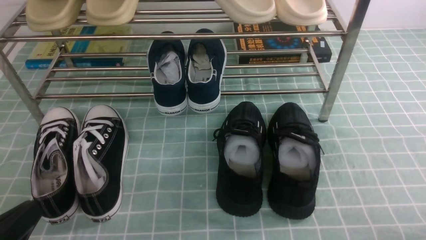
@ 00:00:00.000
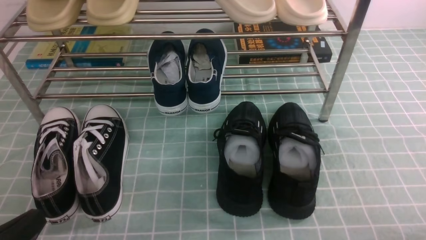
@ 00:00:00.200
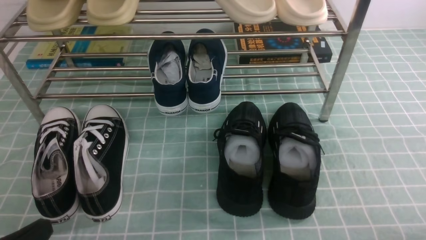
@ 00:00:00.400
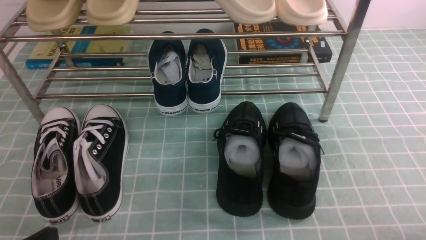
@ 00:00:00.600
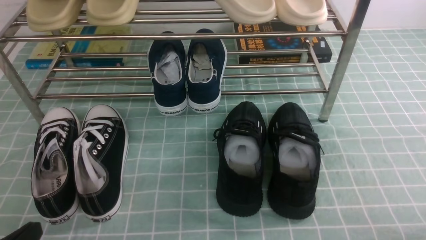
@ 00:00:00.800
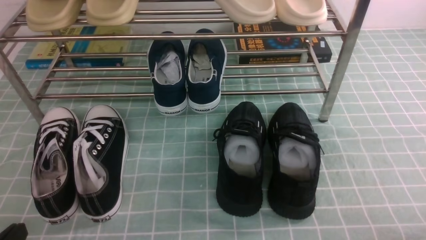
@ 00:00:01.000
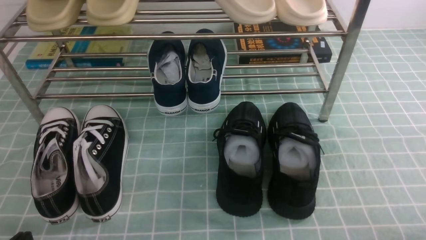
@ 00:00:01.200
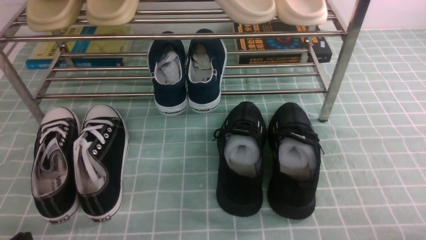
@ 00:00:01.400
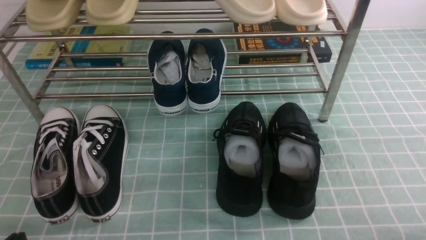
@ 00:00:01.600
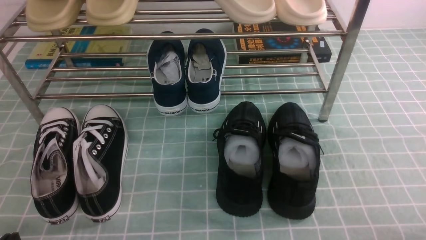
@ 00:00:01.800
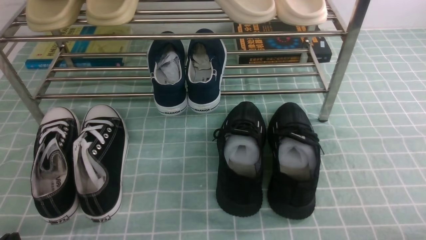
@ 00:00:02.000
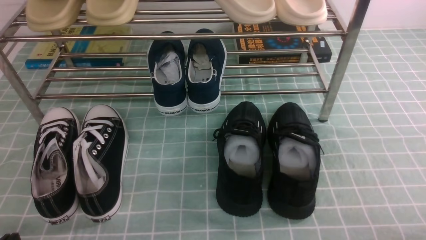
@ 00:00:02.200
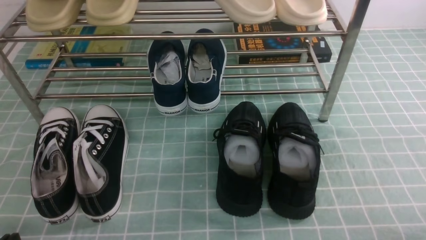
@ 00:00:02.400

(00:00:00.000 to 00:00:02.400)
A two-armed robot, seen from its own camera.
00:00:00.000 - 00:00:01.200: The left gripper shifts roughly 5 cm downward.

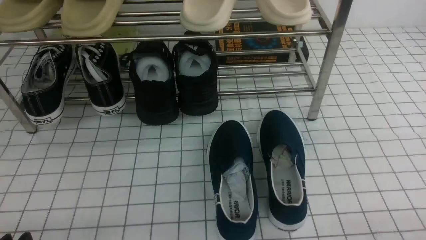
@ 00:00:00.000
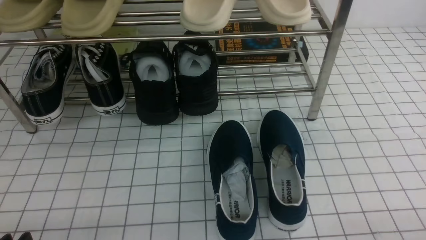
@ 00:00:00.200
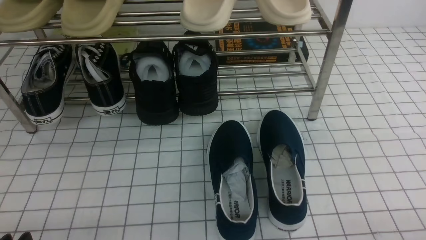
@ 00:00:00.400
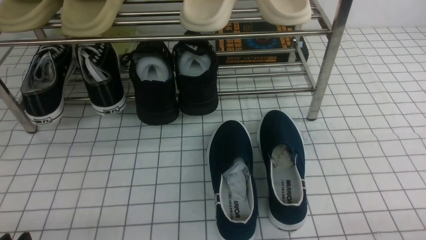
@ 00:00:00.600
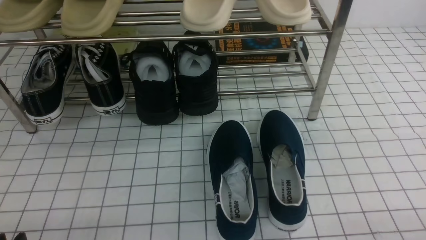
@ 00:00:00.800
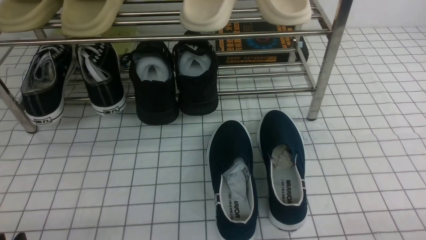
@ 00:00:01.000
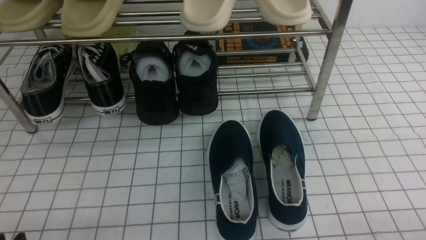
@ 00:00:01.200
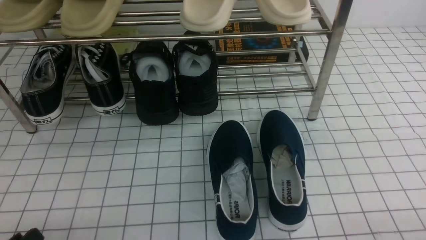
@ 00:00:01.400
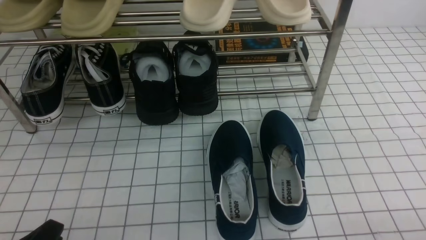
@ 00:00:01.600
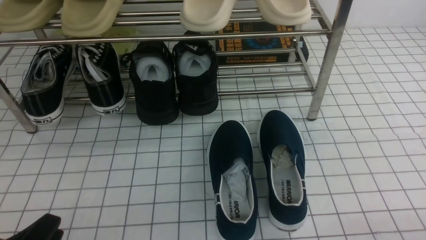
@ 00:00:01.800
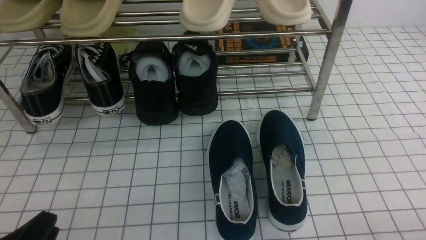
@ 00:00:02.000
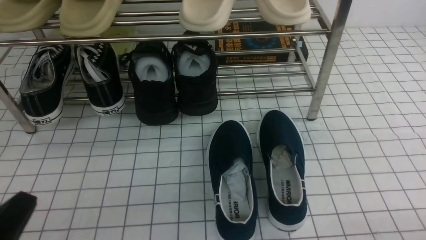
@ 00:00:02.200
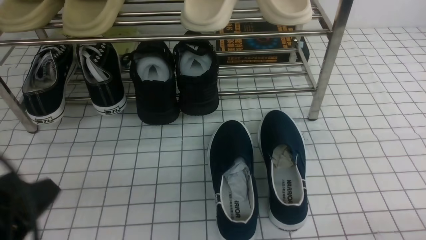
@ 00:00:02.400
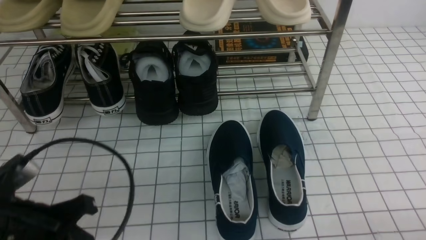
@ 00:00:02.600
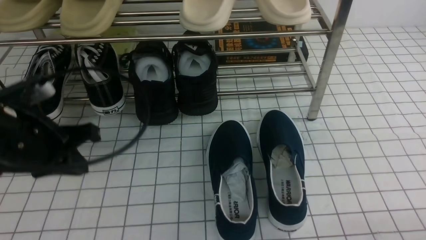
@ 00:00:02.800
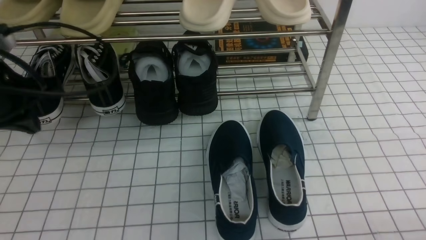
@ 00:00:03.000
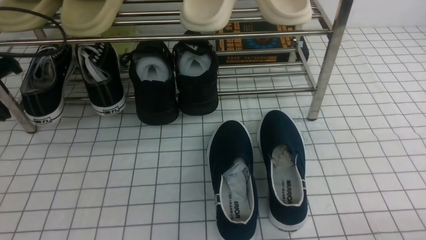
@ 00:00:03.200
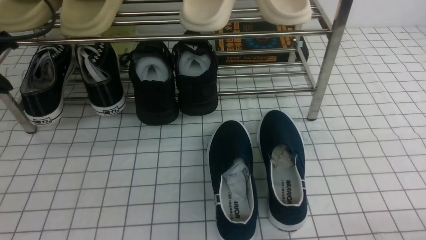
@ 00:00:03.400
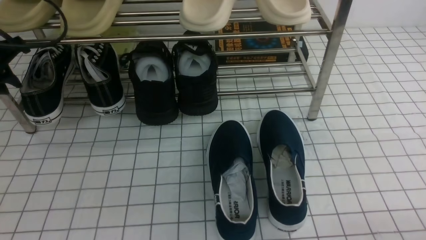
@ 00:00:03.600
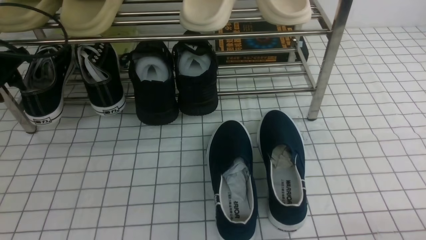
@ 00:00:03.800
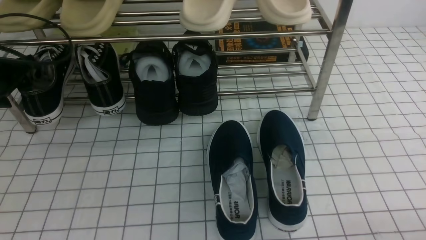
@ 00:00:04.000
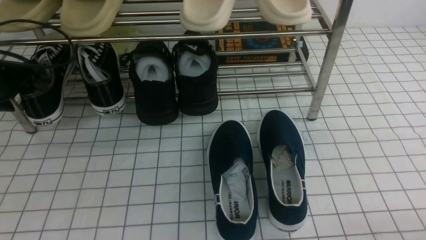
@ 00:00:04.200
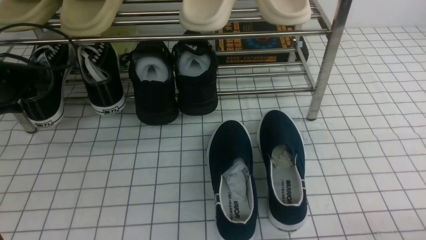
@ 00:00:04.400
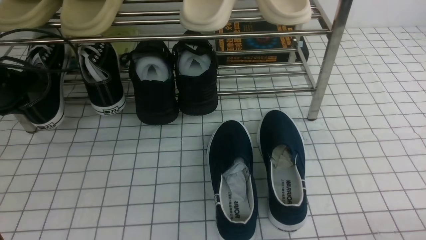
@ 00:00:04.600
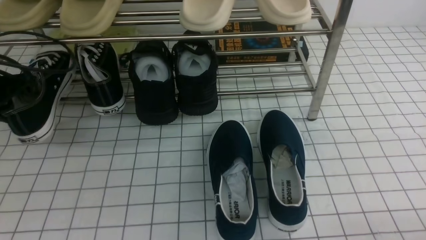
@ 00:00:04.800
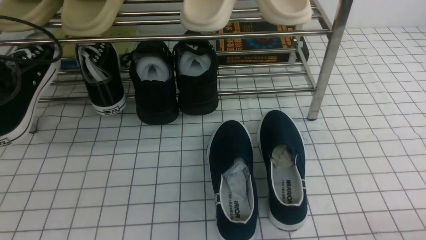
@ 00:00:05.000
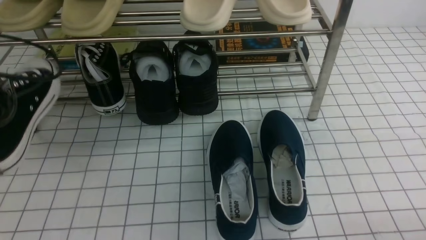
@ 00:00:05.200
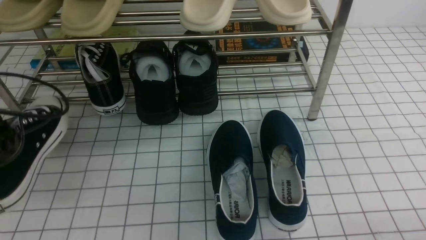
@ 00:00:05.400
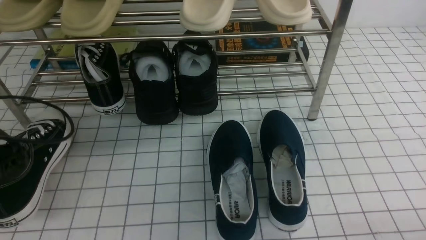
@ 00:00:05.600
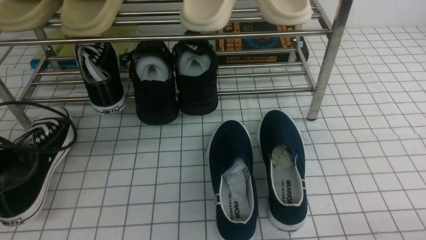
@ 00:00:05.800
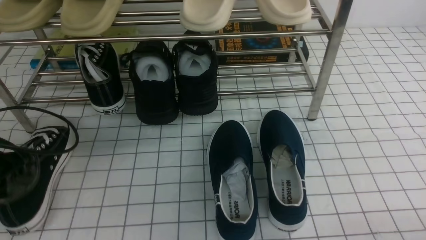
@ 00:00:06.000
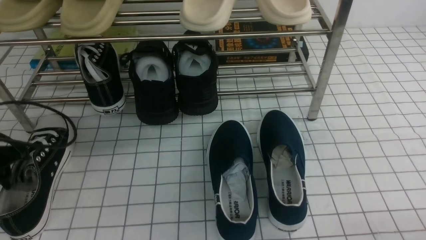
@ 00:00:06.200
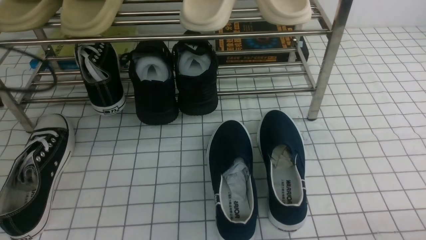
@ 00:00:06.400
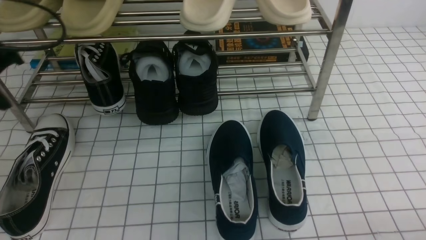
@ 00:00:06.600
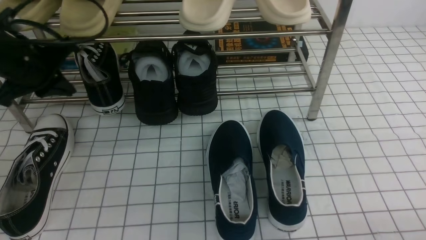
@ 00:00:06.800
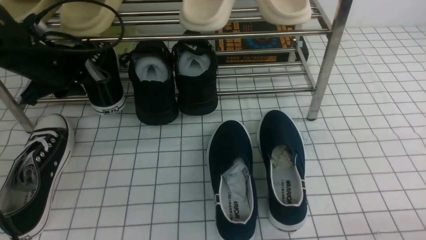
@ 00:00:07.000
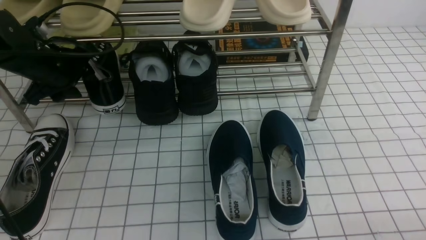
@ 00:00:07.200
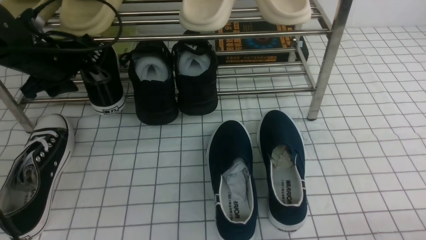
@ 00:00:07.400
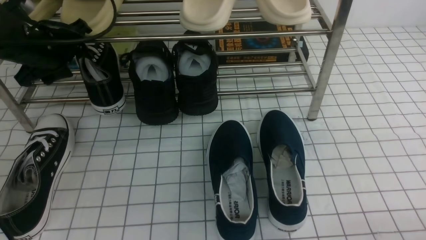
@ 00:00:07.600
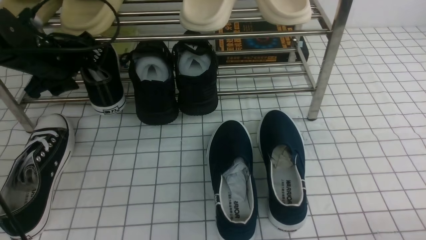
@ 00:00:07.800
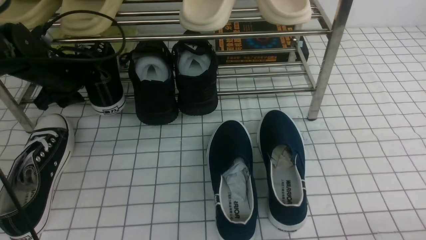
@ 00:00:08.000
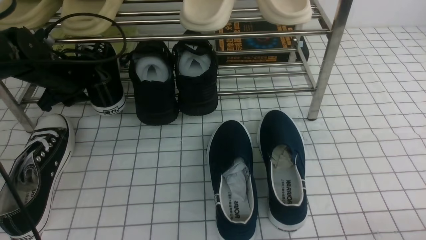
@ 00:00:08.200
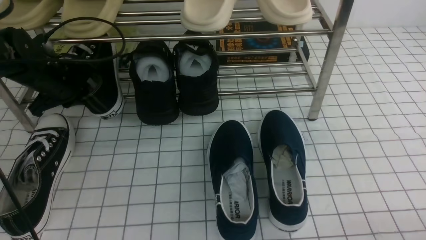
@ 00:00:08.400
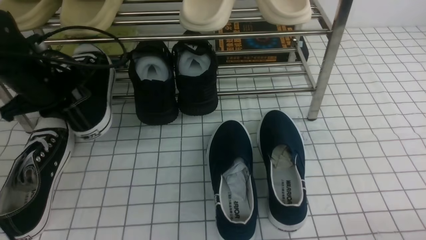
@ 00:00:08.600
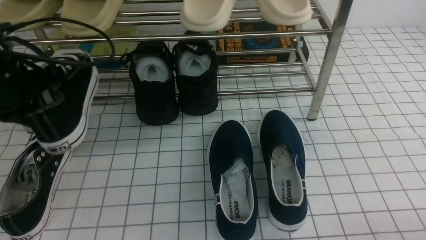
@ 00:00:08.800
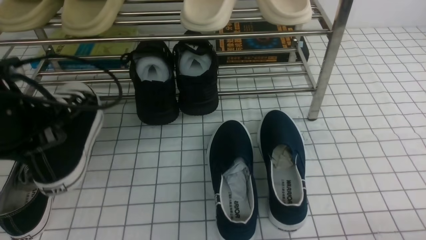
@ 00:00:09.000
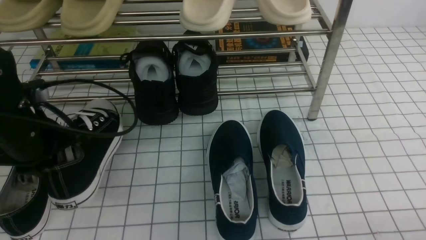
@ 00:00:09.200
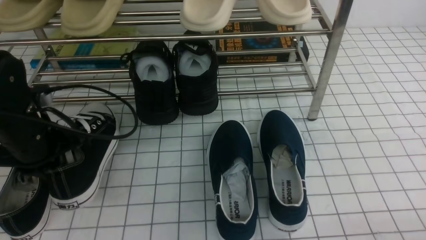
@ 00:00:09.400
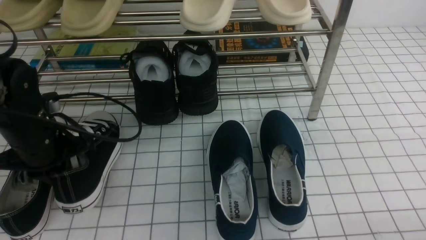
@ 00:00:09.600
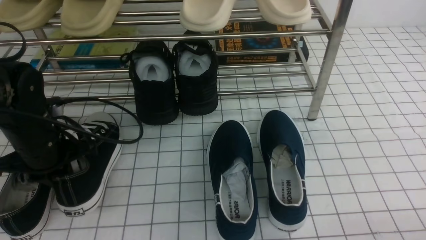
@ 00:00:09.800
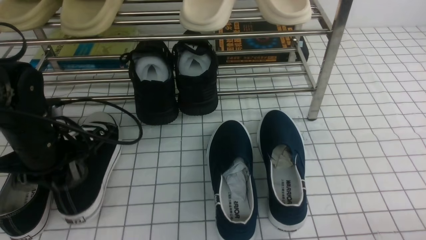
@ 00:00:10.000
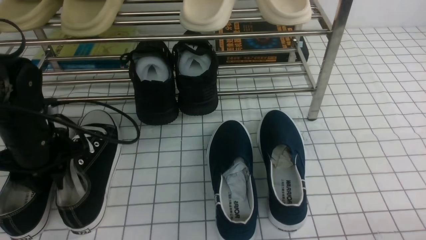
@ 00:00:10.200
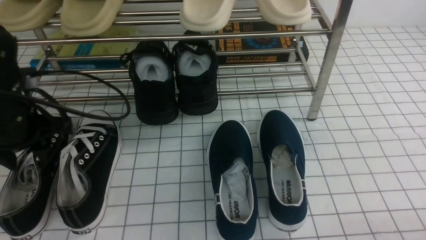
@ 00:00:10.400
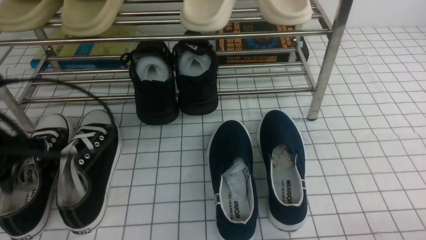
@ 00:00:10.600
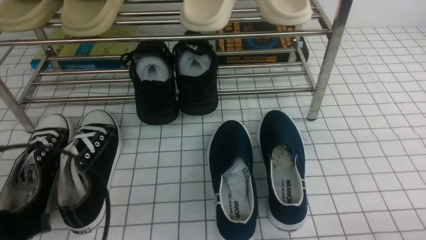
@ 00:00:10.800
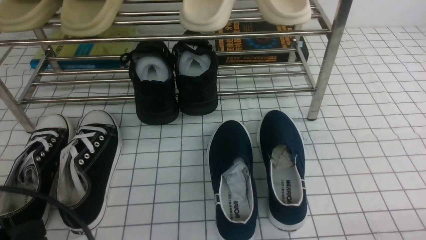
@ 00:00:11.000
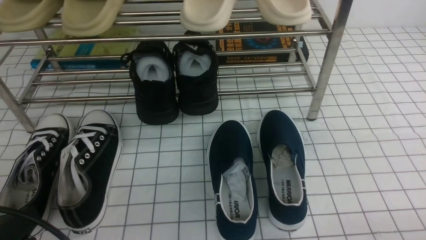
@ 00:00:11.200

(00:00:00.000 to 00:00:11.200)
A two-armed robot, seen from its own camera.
Step, 00:00:00.000 - 00:00:04.600: use the left arm to clamp a shoe on the left side of the shoe rack.
Step, 00:00:04.800 - 00:00:06.200: Use your left arm to remove the clamped shoe from the shoe rack and put it down.
Step, 00:00:06.400 - 00:00:08.200: use the left arm to clamp a shoe on the left side of the shoe rack.
Step, 00:00:08.400 - 00:00:10.200: Use your left arm to remove the clamped shoe from the shoe rack and put it down.
00:00:01.600 - 00:00:03.200: The left gripper is displaced forward and upward by about 30 cm, and closes up.
00:00:03.200 - 00:00:04.800: The left gripper opens, then closes again.
00:00:04.800 - 00:00:06.400: The left gripper is displaced backward by roughly 5 cm, and opens.
00:00:06.400 - 00:00:08.000: The left gripper travels forward and to the right by about 15 cm, and opens up.
00:00:08.000 - 00:00:09.600: The left gripper is displaced backward by roughly 10 cm, and closes its fingers.
00:00:09.600 - 00:00:11.200: The left gripper heads backward, covering roughly 20 cm, and opens, then closes again.

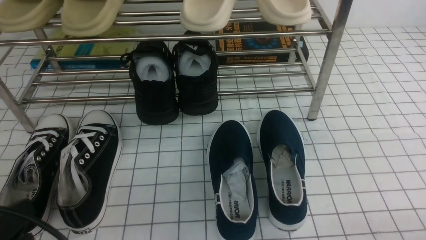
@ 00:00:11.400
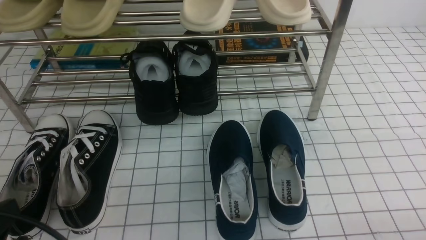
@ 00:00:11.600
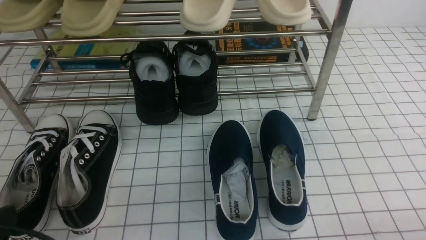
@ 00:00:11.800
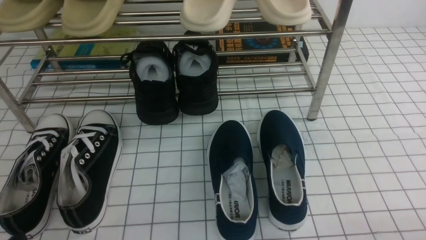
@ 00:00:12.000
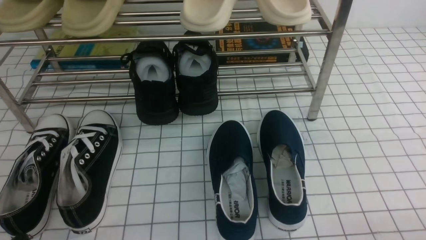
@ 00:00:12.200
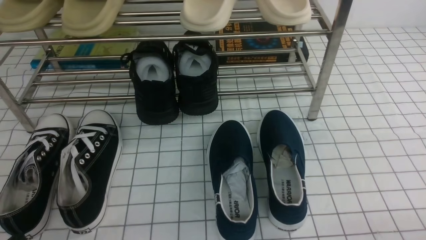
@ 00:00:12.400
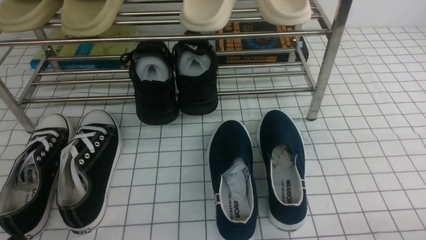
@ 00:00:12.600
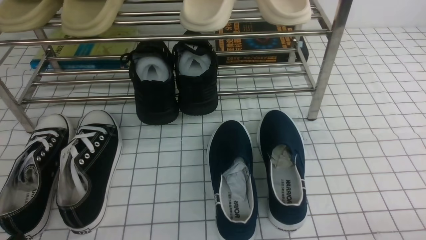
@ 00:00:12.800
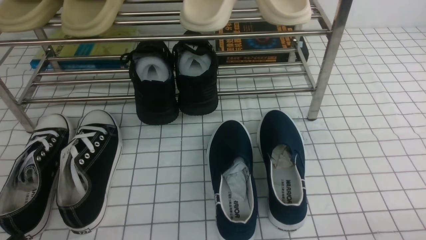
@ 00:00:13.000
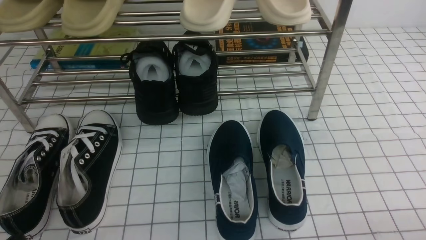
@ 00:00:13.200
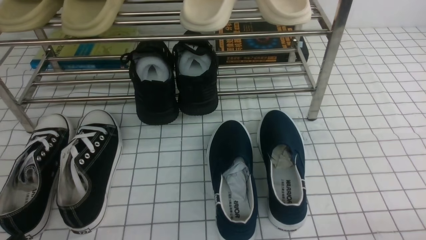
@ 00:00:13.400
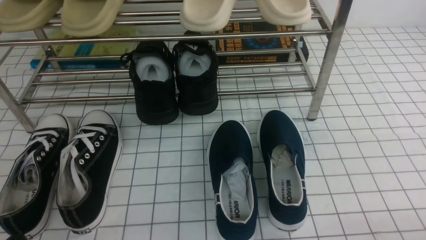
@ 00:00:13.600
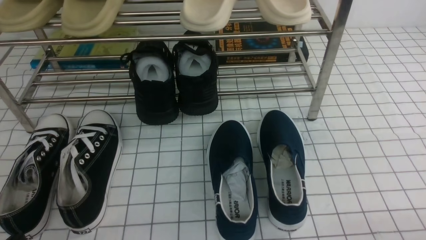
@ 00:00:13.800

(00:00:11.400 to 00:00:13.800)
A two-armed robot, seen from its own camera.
00:00:11.400 - 00:00:12.600: The left gripper moves downward, about 10 cm.
00:00:12.600 - 00:00:13.800: The two grippers keep their place.
